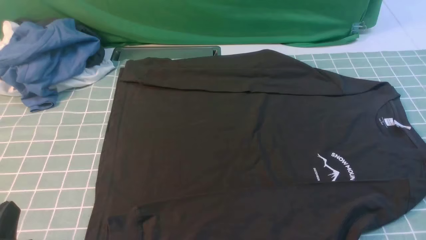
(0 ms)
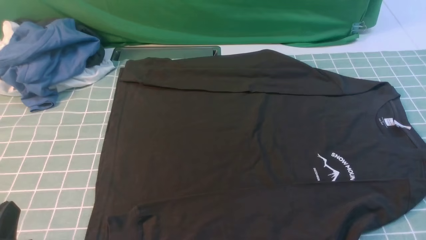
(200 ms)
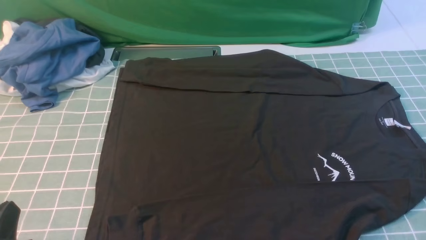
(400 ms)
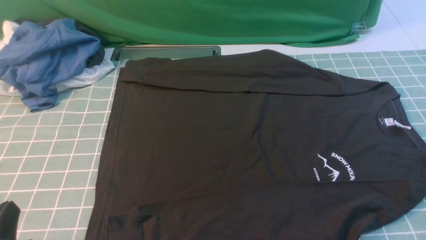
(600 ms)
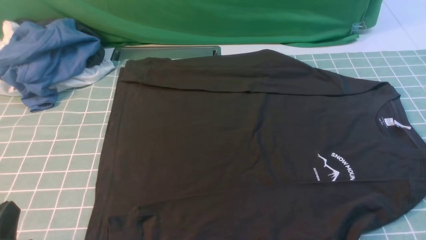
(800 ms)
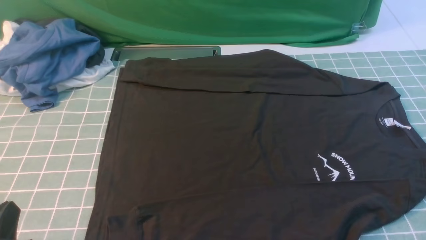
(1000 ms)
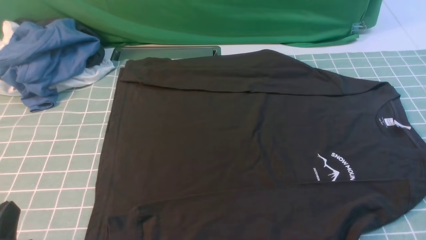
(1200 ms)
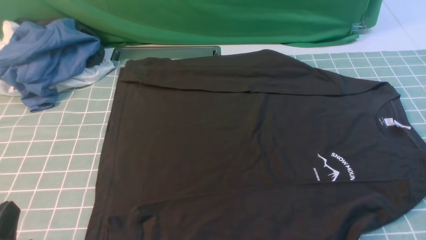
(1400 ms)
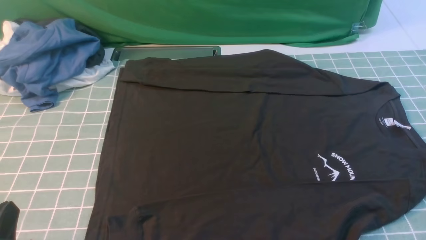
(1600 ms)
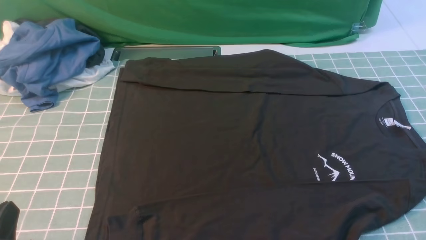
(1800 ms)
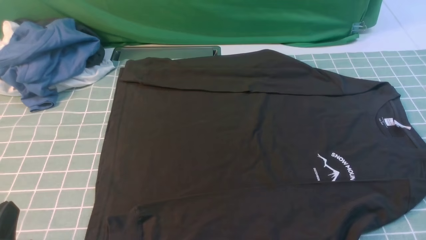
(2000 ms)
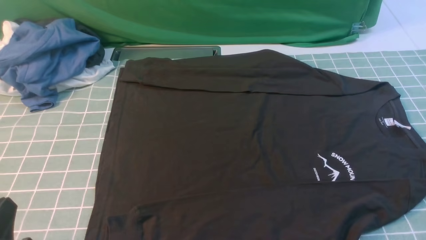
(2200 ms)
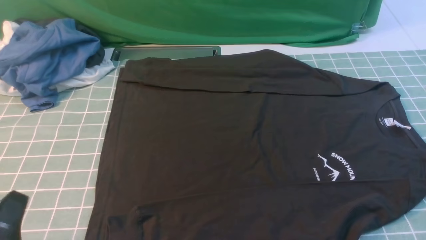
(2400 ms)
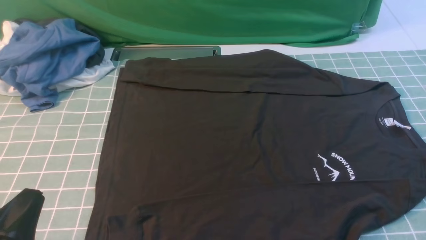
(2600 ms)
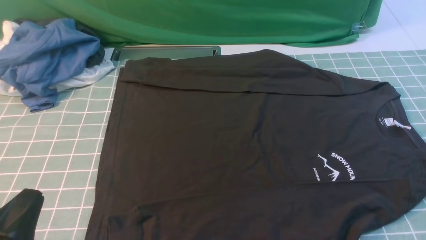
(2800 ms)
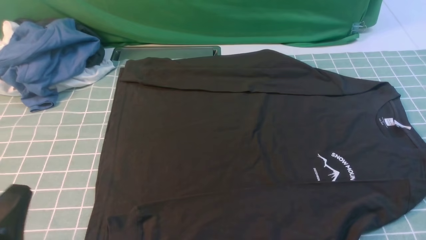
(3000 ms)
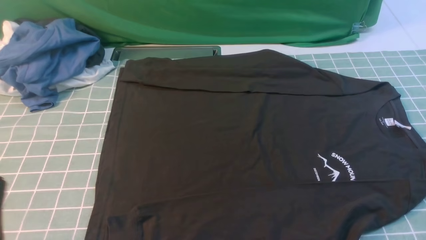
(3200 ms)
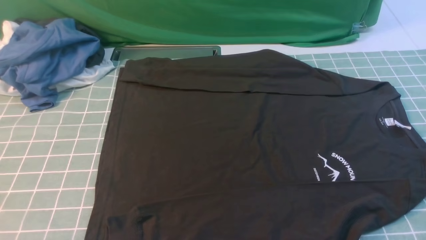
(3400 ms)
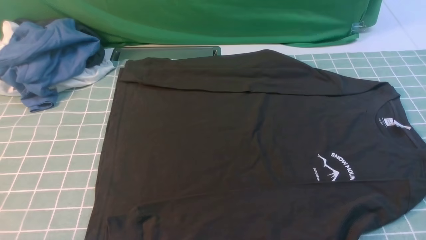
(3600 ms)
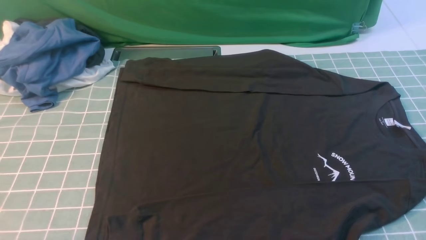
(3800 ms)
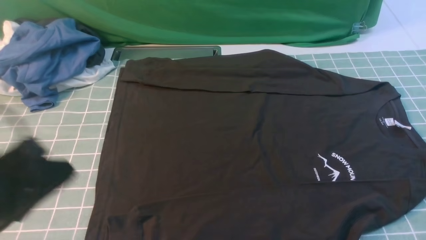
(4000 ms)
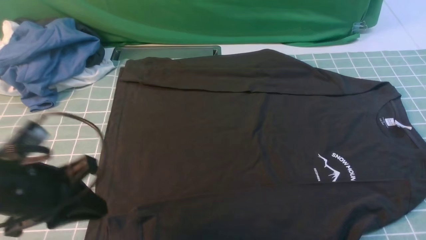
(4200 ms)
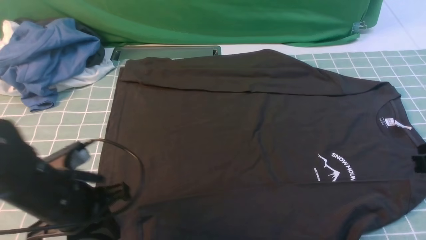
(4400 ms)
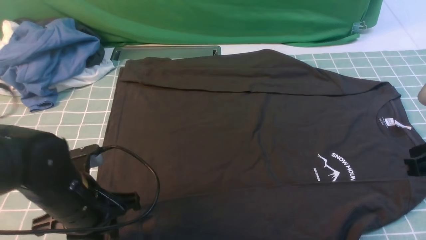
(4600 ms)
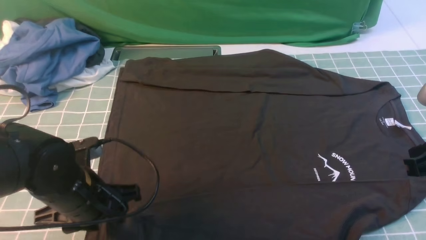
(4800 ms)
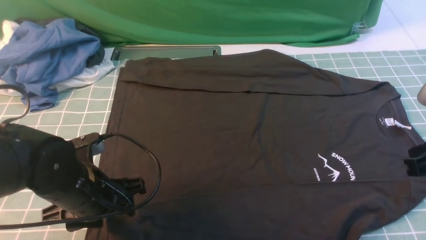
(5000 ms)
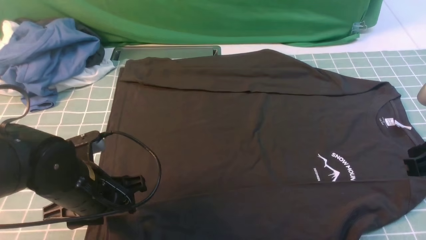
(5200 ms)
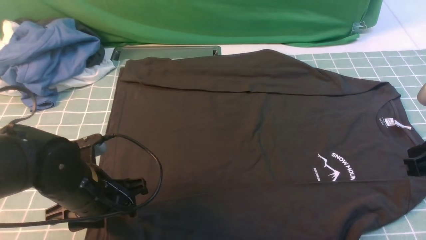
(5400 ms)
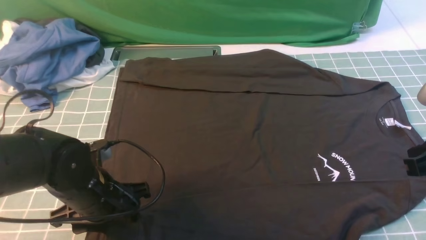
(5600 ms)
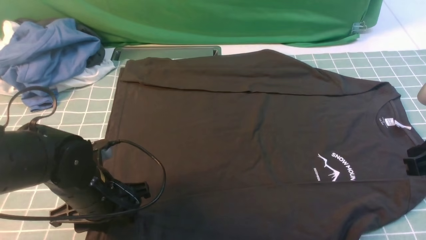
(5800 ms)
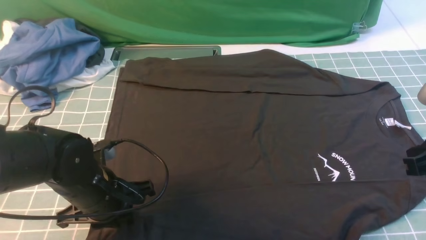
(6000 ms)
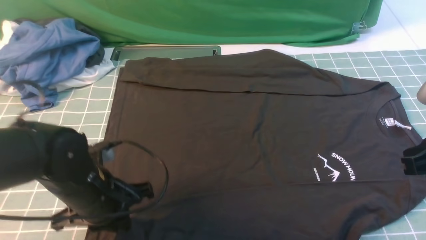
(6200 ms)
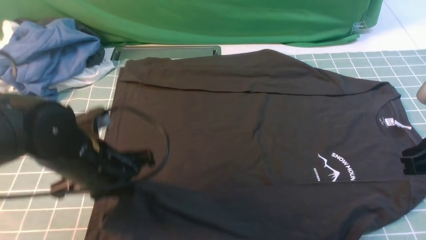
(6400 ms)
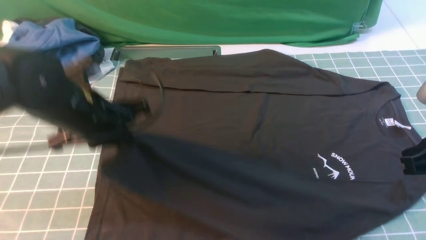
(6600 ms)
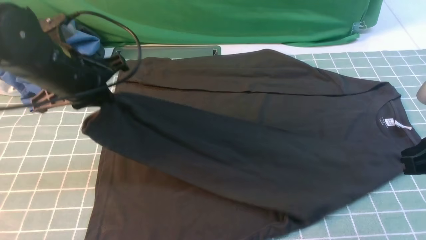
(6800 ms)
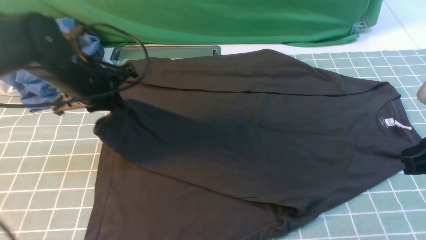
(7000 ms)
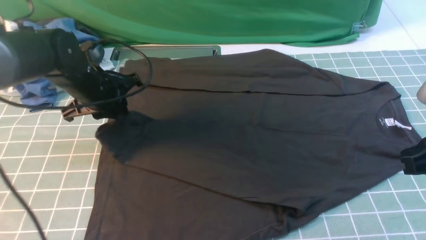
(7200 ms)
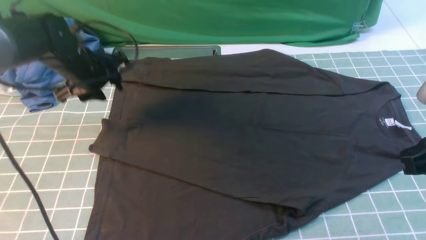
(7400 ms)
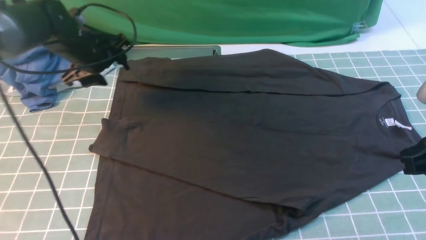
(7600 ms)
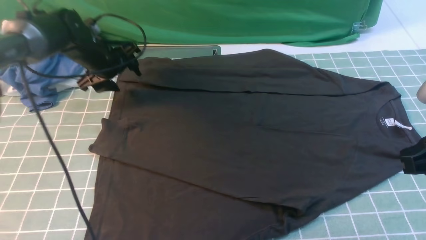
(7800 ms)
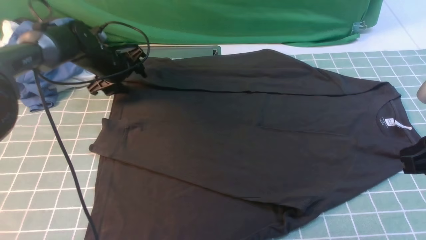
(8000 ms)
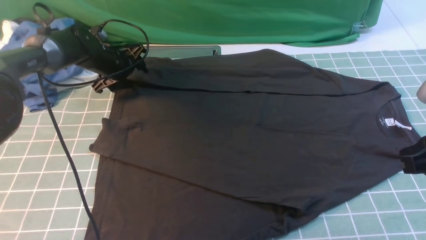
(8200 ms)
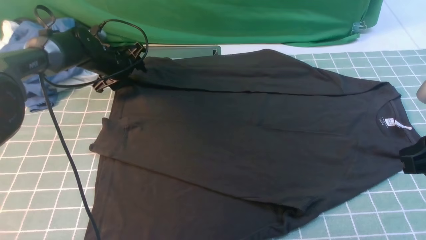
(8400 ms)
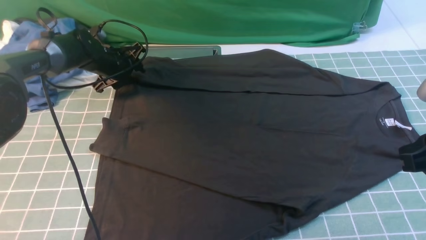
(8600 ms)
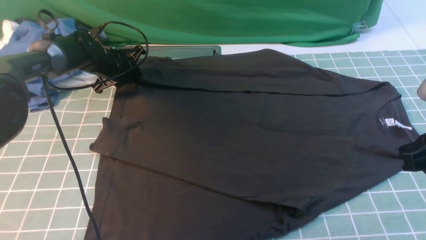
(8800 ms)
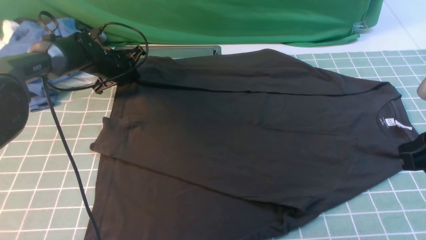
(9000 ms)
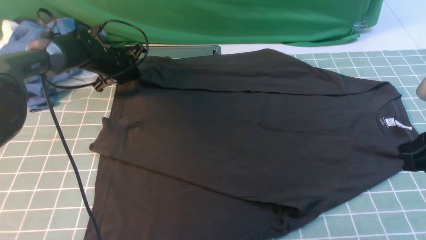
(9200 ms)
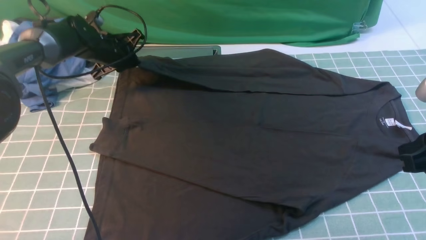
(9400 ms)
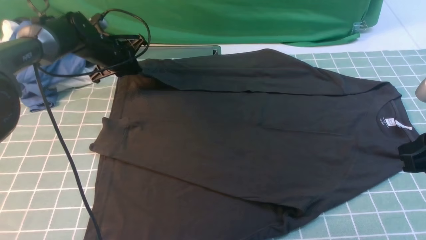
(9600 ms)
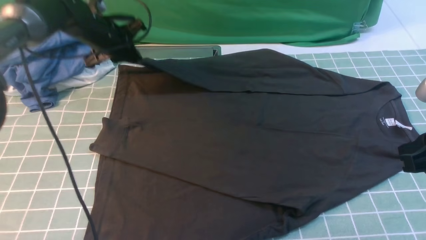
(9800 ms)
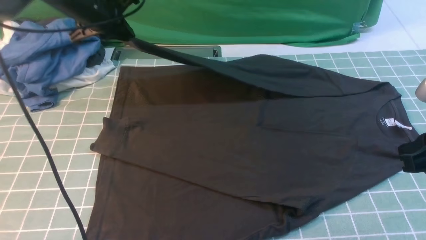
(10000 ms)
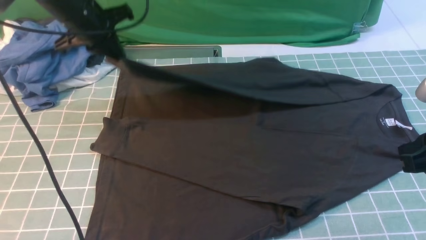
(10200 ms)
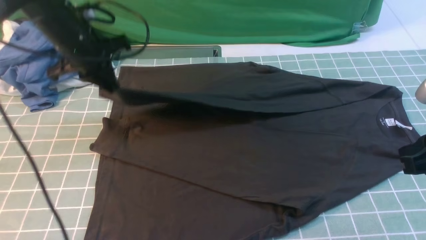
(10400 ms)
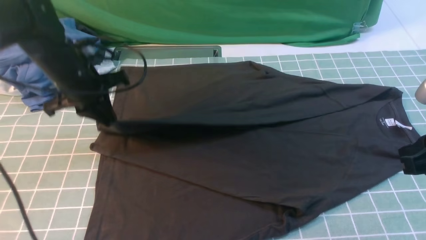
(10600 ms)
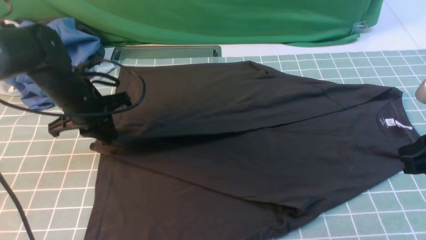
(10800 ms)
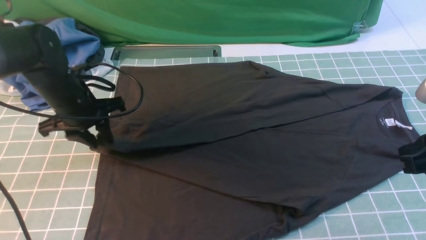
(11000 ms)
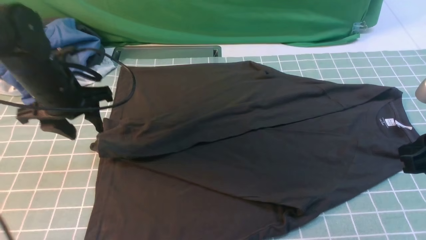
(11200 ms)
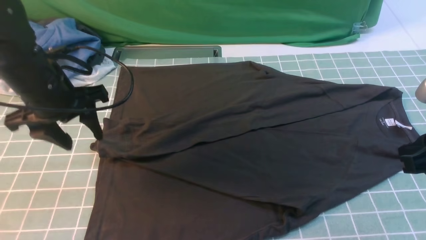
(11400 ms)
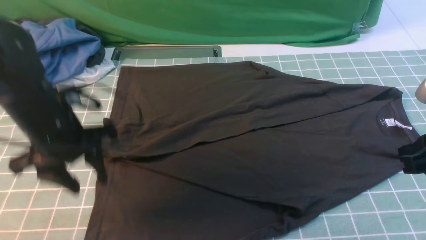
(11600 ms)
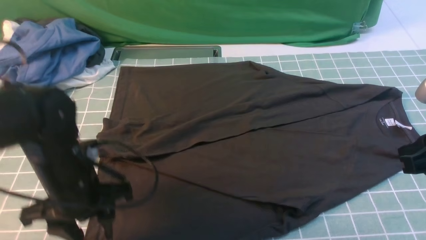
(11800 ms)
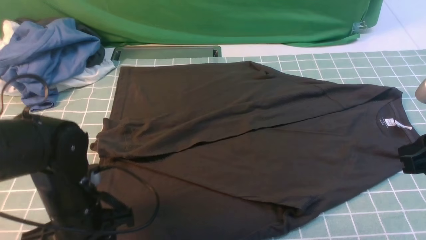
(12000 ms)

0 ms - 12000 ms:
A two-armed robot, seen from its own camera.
Step, 0 ms - 6400 ms: use the left arm to clamp the cuff closest to it.
Step, 6600 ms - 7200 ms: use the left arm to drag and place the cuff at the centered position on the left edge of the fabric.
Step, 7400 ms - 9200 ms: use the left arm to clamp the cuff farthest from it.
Step, 9600 ms - 11400 ms: use the left arm to drag and drop the cuff onto the cuff closest to the left arm.
0 ms - 1600 ms: The two grippers keep their place.
3000 ms - 4400 ms: The left gripper goes about 15 cm forward.
4400 ms - 6000 ms: The left gripper shifts by about 5 cm, and opens and closes again.
6000 ms - 7600 ms: The left gripper is displaced forward by some 25 cm, and opens.
7600 ms - 9000 ms: The left gripper moves downward and forward, some 10 cm, and closes up.
9000 ms - 10400 ms: The left gripper goes approximately 15 cm upward and backward.
10400 ms - 12000 ms: The left gripper shifts some 25 cm backward and downward, and opens its fingers.

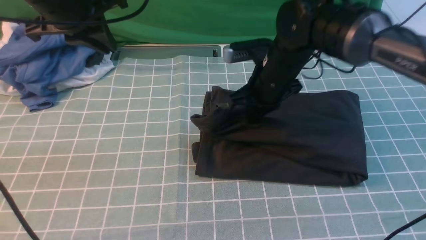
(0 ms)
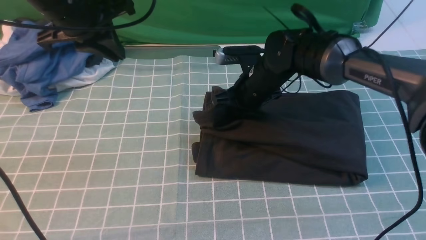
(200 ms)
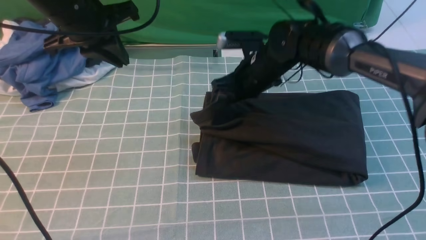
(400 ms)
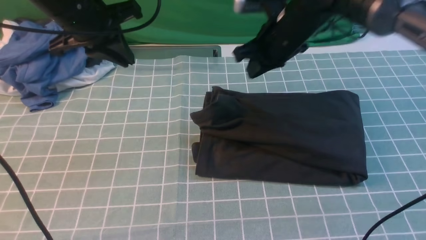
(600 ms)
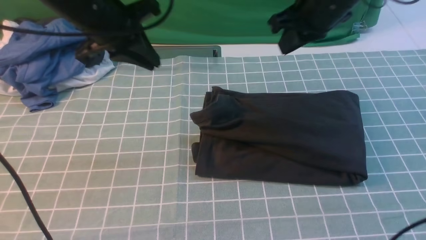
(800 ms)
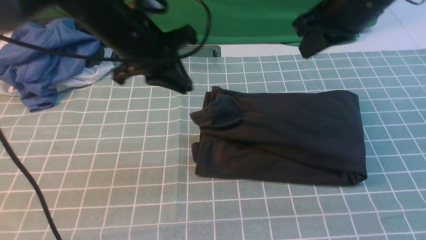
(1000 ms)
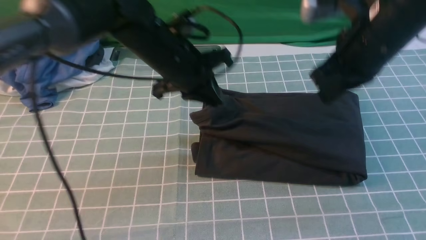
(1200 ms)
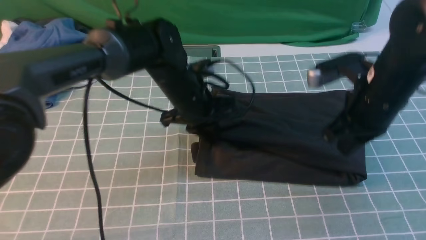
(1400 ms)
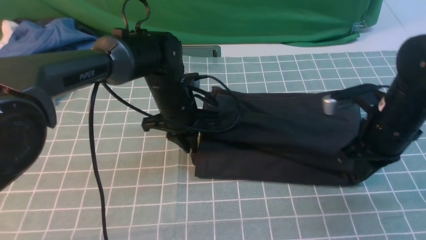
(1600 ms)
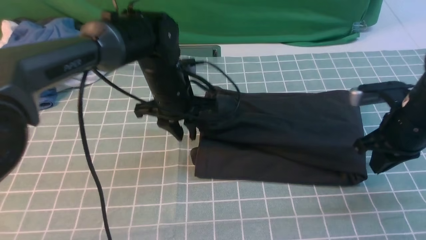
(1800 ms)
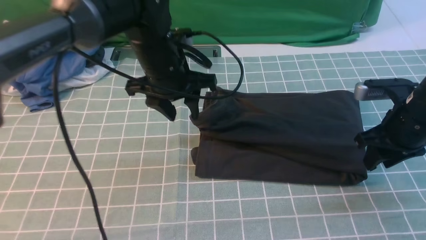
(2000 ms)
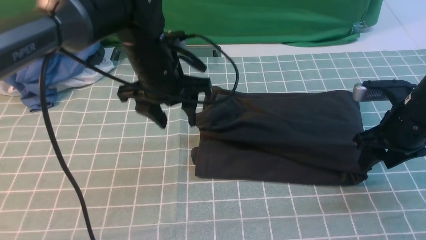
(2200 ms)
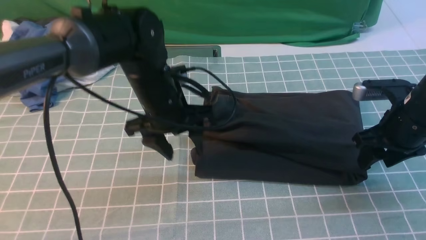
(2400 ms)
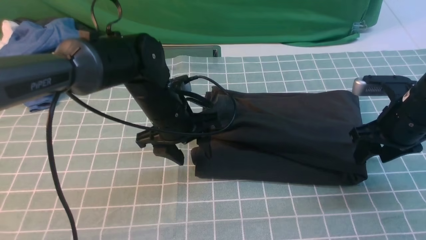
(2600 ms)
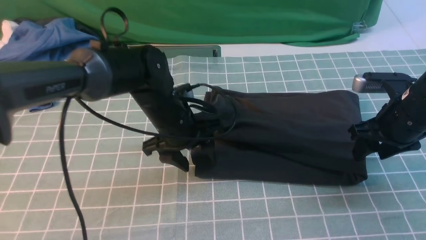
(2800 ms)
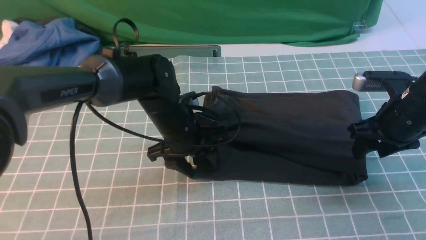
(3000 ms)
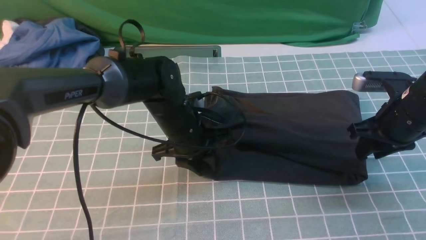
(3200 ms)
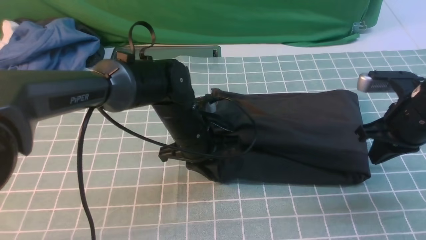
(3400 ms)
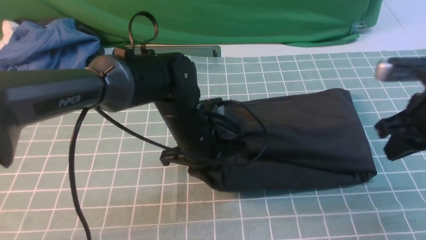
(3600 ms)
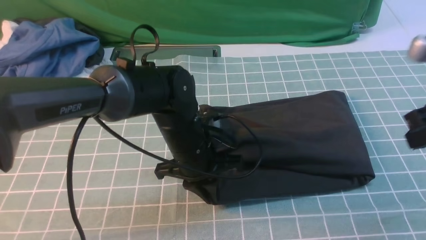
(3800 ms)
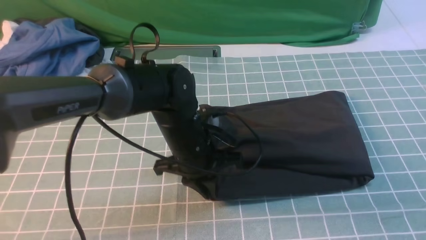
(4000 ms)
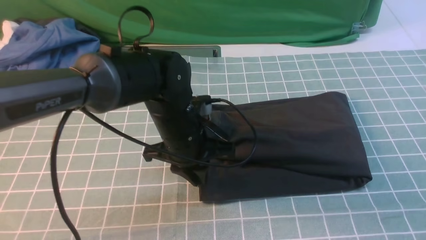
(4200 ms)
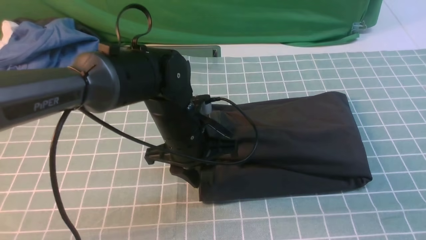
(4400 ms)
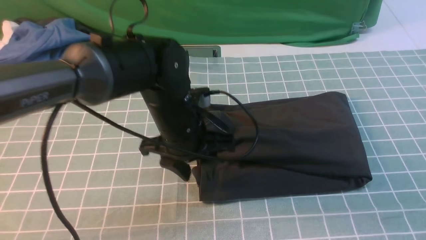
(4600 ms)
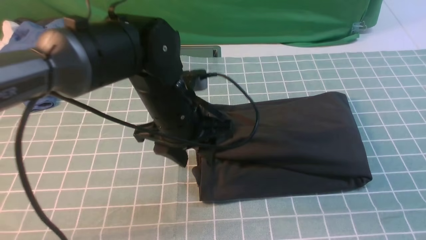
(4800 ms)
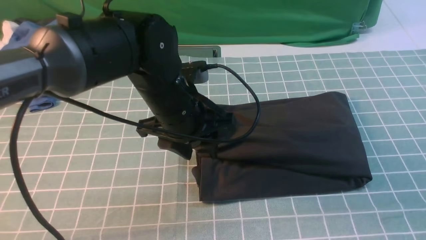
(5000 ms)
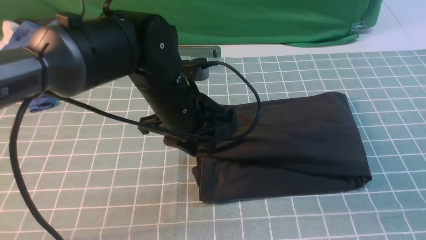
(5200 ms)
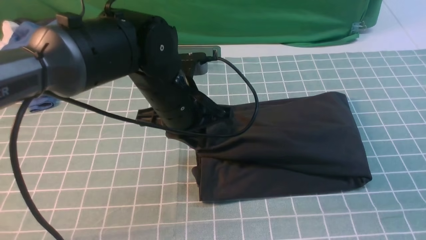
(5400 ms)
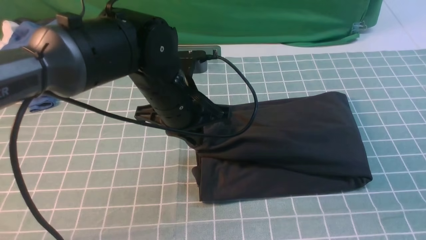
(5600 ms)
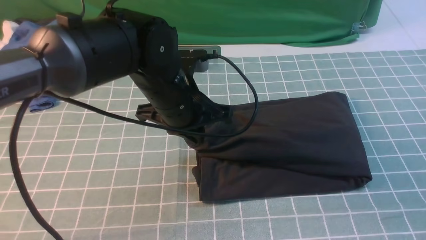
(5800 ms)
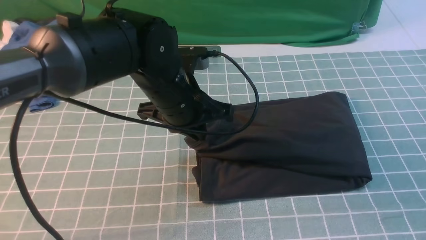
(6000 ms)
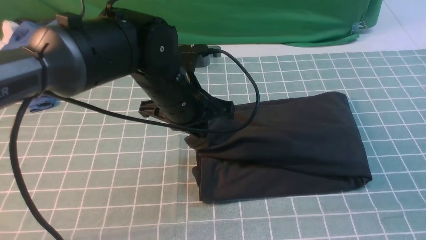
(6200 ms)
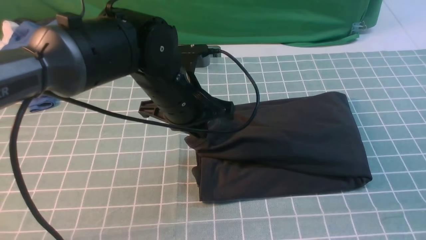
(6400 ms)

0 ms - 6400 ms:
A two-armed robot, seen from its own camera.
0 ms - 1600 ms: The right gripper is displaced to the right and backward by approximately 20 cm. Meanwhile the left gripper shifts approximately 20 cm downward and to the right.
1600 ms - 3200 ms: The right gripper opens, then closes once more, while the left gripper travels upward and back again, approximately 5 cm each way, and opens, then closes once more.
3200 ms - 4800 ms: The right gripper moves backward and upward, roughly 25 cm, and closes up. Meanwhile the left gripper is displaced upward by roughly 10 cm, and opens up.
4800 ms - 6400 ms: The left gripper closes up, while the right gripper heads downward, covering some 15 cm.
